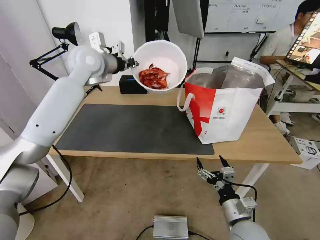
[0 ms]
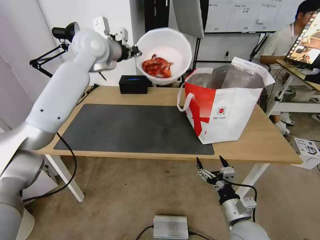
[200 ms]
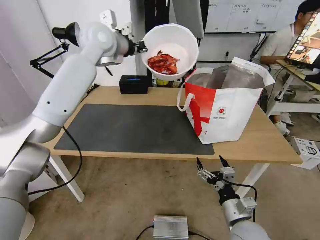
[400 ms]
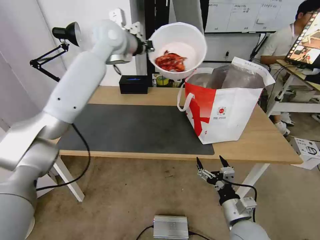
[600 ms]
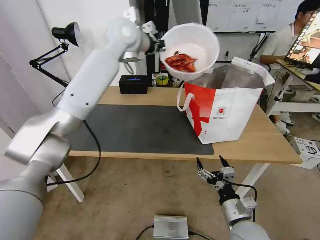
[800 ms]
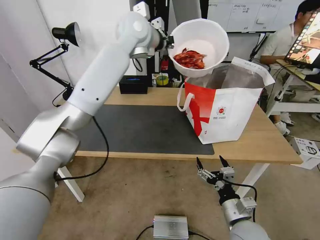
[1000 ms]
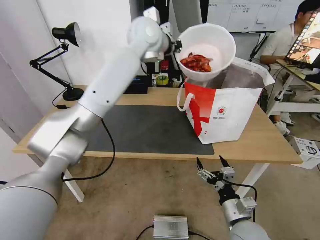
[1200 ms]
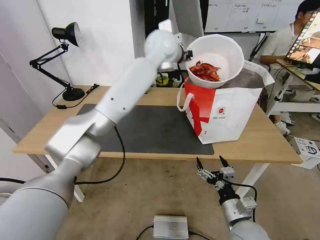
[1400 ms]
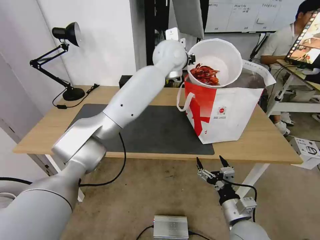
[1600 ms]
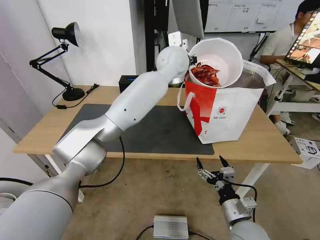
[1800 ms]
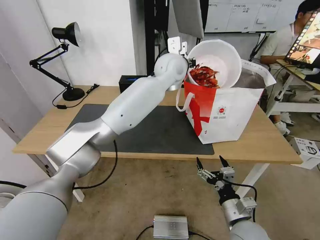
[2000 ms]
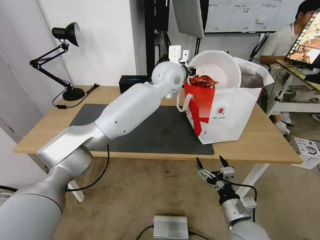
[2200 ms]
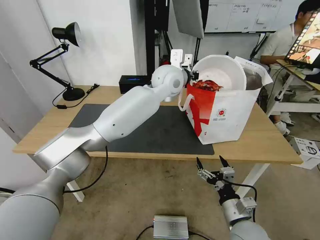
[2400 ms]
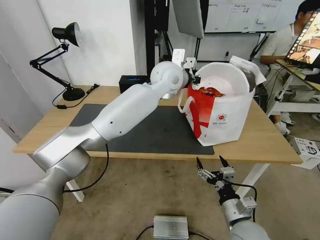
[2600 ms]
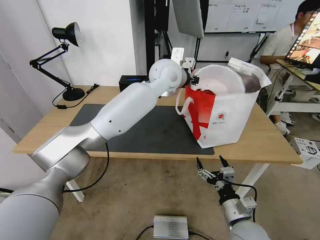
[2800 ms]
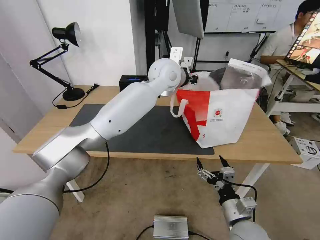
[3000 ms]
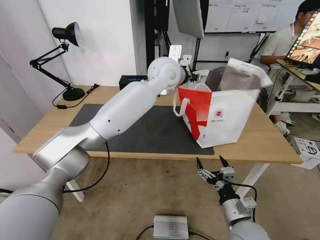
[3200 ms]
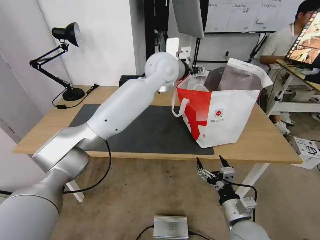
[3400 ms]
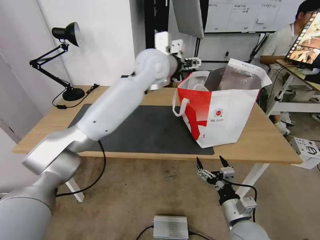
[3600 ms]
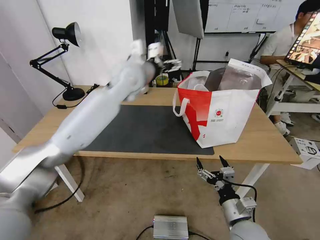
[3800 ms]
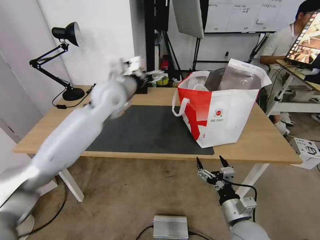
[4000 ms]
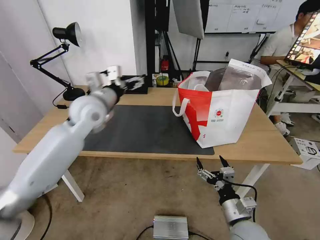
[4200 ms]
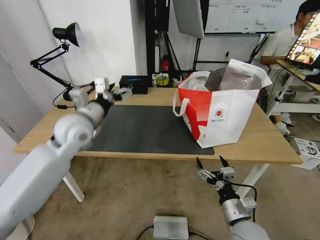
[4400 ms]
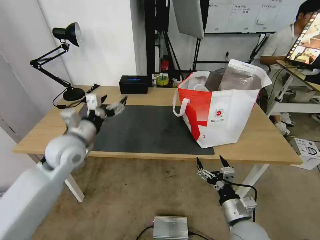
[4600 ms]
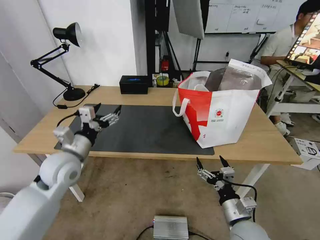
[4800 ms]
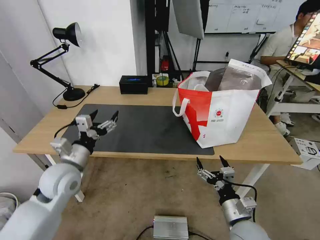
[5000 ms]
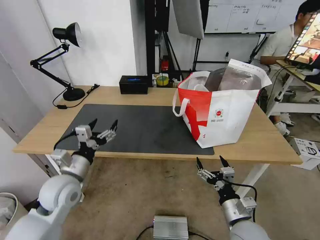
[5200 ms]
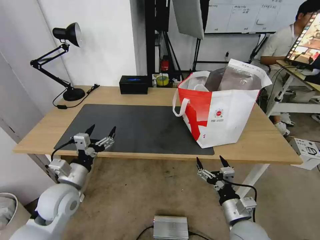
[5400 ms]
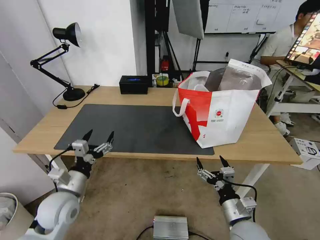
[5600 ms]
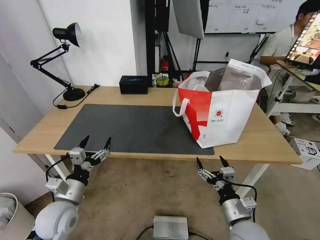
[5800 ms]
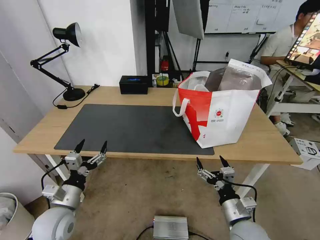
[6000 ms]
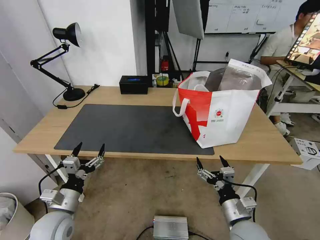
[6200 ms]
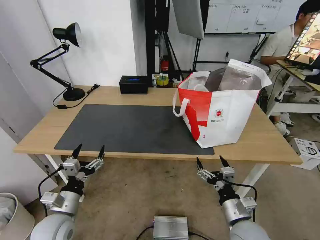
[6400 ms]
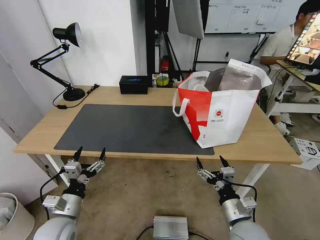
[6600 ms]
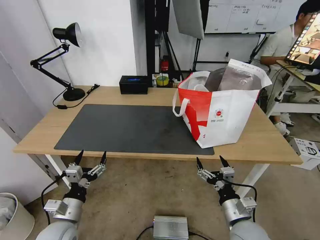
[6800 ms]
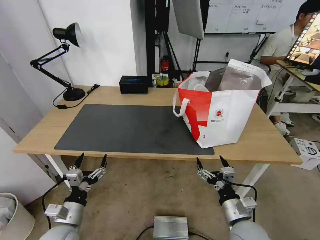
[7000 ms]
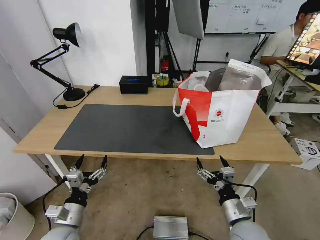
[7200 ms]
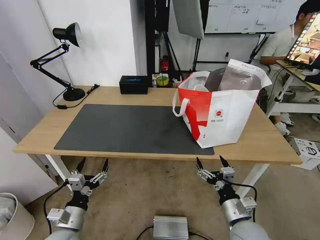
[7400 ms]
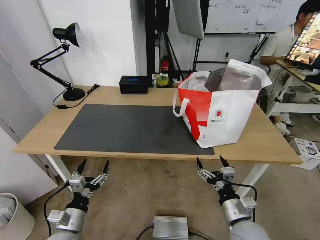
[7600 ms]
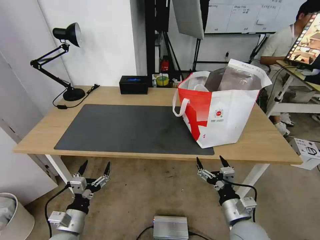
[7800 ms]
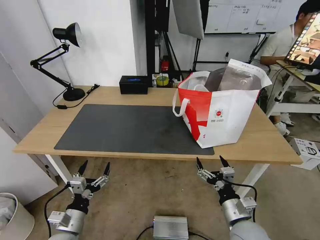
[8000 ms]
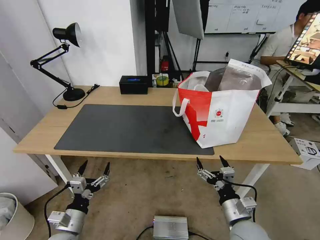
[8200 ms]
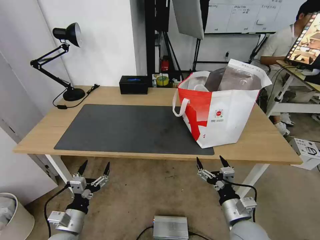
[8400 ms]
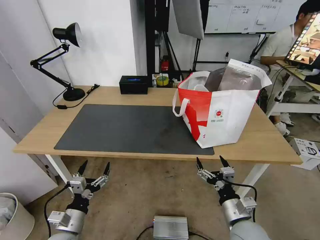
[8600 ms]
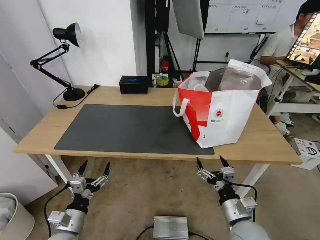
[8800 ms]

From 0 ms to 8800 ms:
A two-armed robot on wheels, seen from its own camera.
Task of the whole recording: Pick up the trash from the table and place it into the takeout bag.
From 0 ms to 1400 ms: The left gripper goes roughly 20 cm to the right.
From 1400 ms to 3000 ms: The left gripper goes some 5 cm downward, and opens.
From 3000 ms to 4400 ms: The left gripper heads to the left, backward and downward, covering roughly 30 cm, and opens.
From 4400 ms to 5800 ms: The left gripper moves downward and backward, roughly 25 cm.
From 5800 ms to 7400 ms: The left gripper heads downward and backward, covering about 10 cm.
From 7400 ms to 8800 ms: The two grippers keep their place.

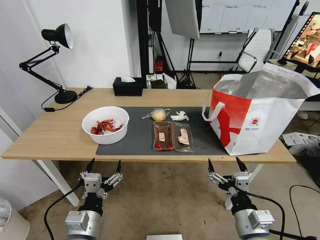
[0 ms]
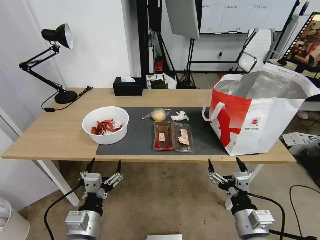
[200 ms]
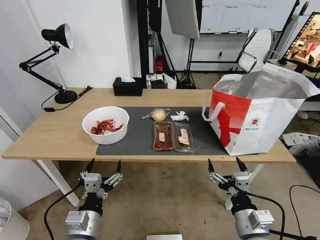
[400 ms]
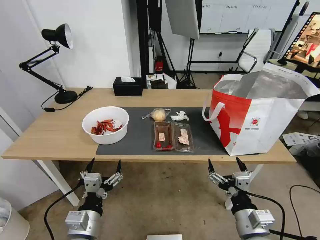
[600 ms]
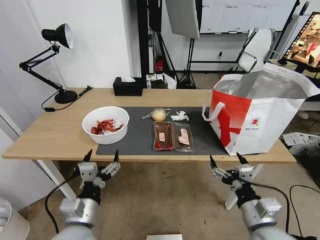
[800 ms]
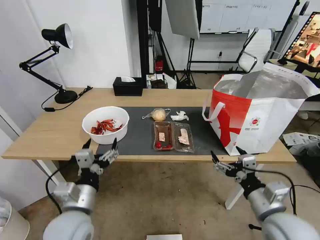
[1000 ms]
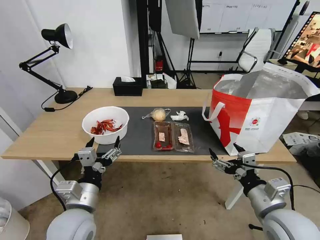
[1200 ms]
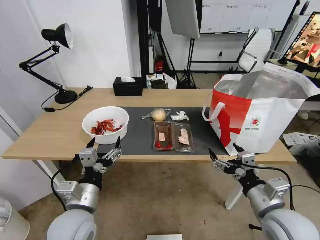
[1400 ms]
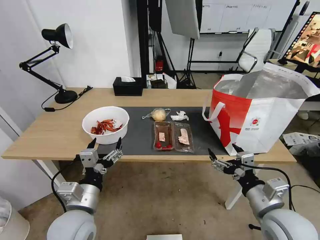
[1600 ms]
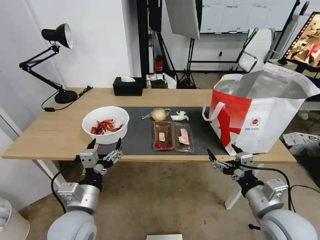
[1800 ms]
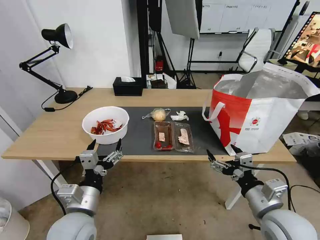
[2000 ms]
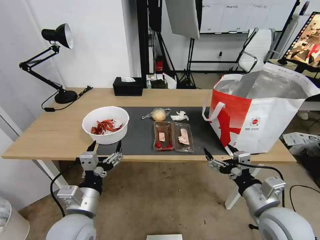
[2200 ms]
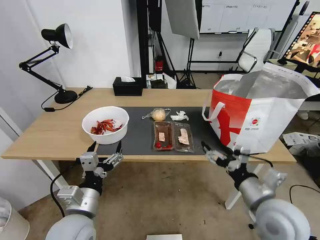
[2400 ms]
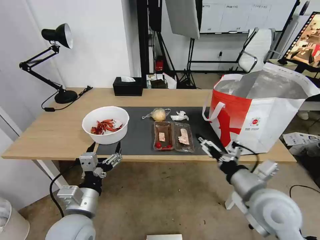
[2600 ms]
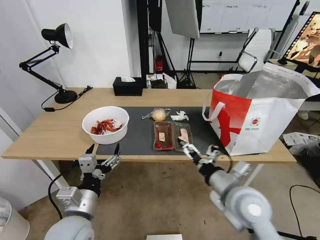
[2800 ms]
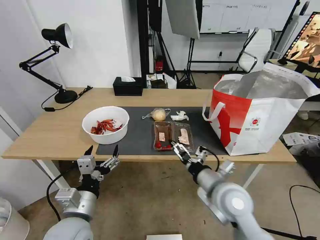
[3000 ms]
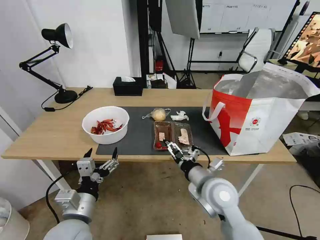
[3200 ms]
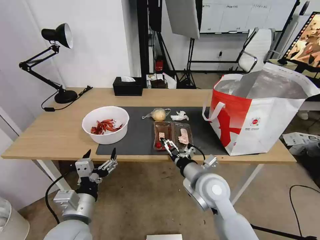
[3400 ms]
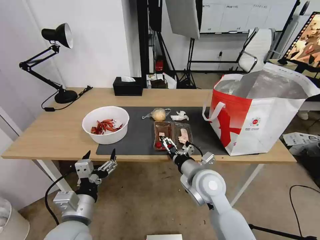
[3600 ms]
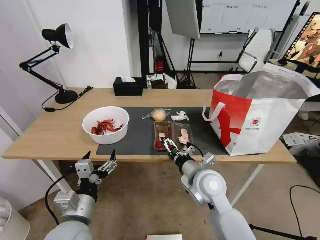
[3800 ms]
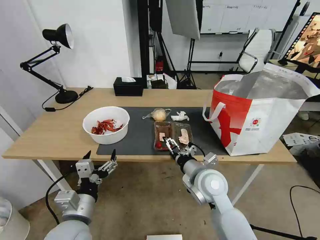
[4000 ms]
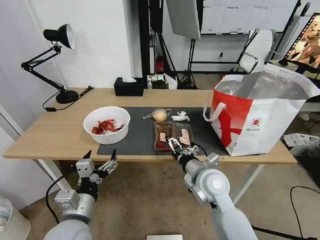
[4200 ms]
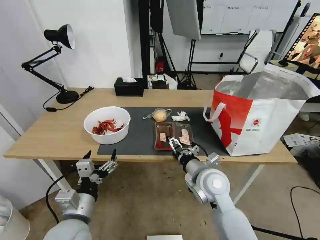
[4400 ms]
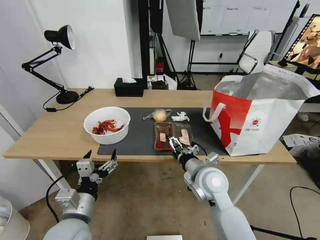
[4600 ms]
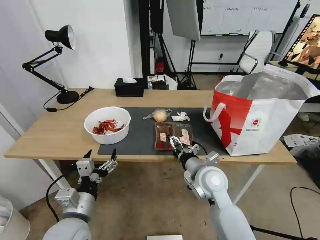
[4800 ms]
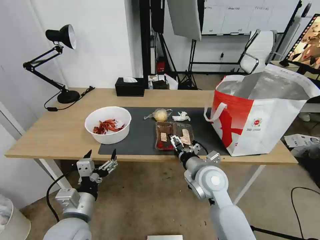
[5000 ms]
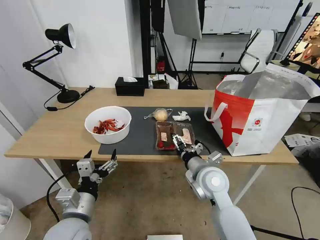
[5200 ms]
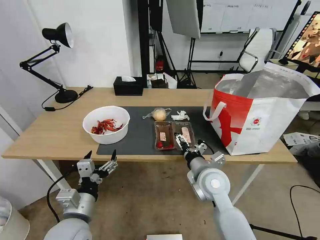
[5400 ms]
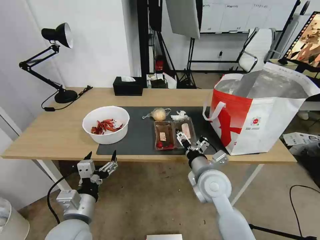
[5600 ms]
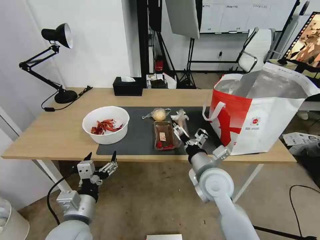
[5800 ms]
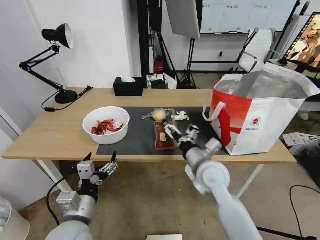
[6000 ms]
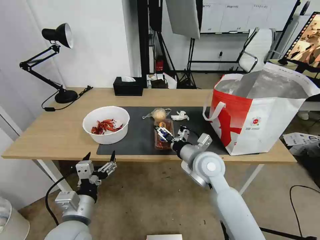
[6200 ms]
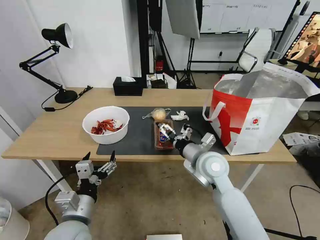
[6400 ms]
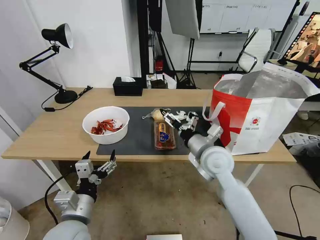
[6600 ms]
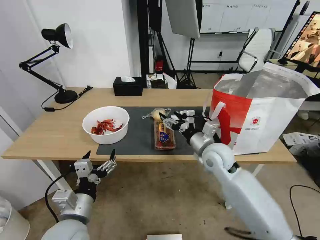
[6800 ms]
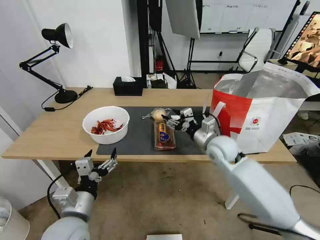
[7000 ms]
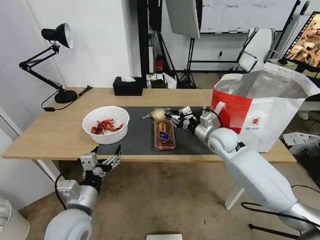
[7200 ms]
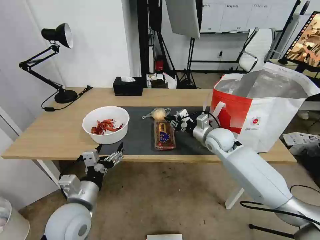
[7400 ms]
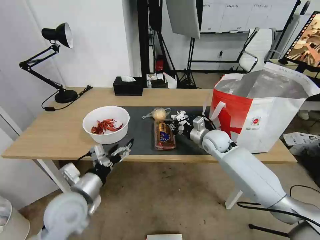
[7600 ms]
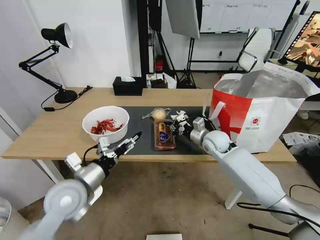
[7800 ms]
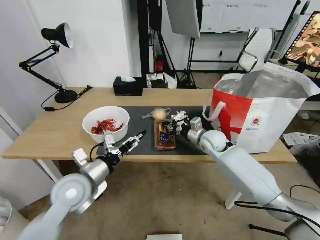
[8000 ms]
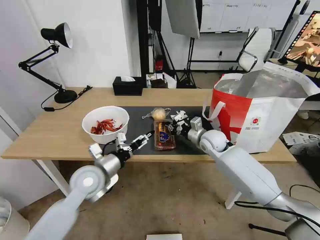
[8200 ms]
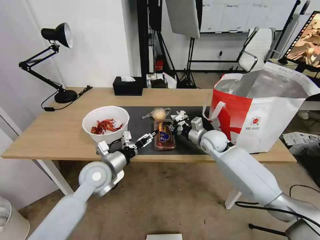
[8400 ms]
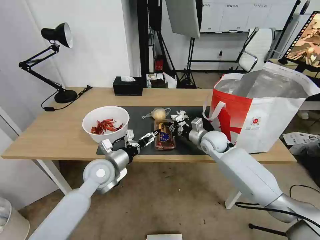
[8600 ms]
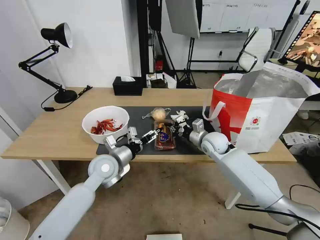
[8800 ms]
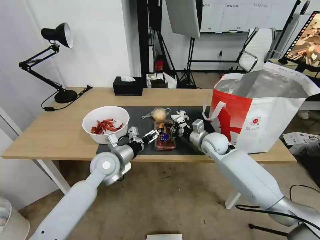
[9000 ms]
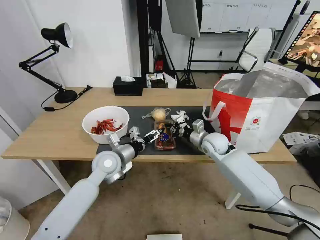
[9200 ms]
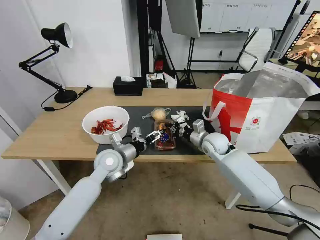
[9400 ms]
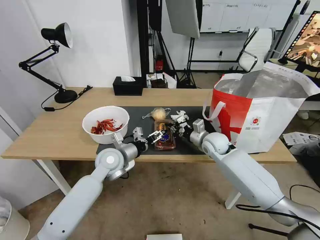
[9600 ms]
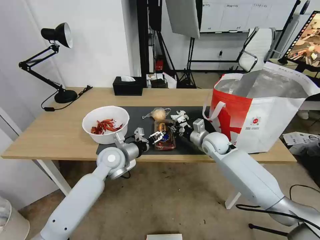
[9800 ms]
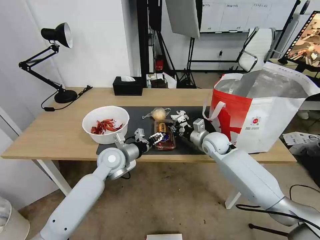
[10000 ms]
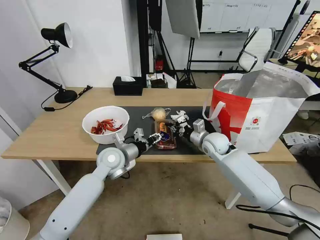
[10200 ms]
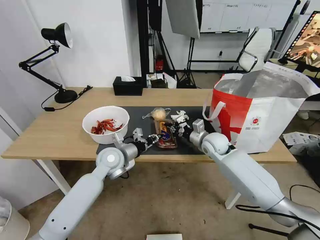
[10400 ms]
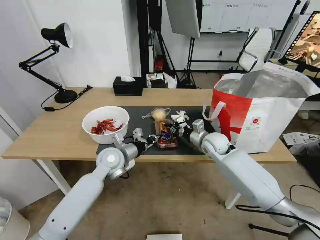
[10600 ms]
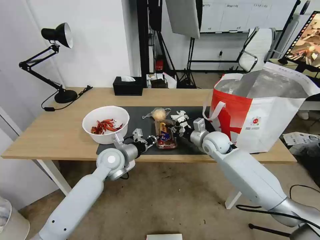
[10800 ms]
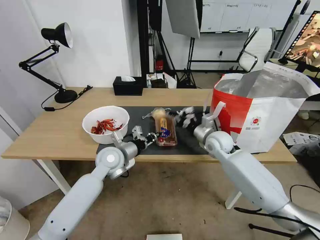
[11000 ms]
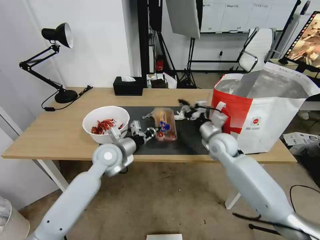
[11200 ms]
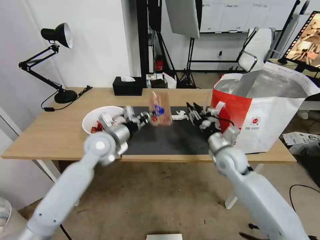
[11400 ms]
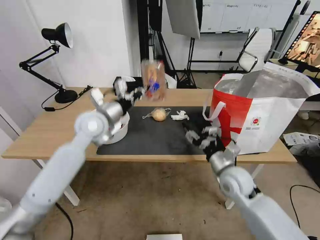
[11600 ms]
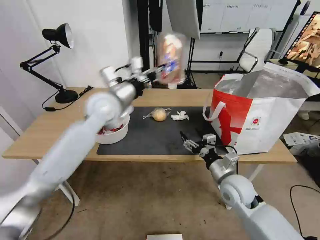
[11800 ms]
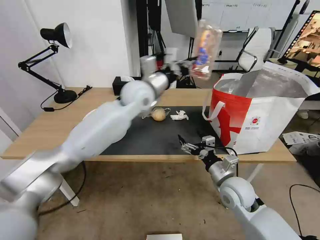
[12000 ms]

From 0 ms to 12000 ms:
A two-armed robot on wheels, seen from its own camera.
Task of the whole recording: Pick up the trash from the table and place it into the takeout bag.
From 1600 ms to 3000 ms: The right gripper heads to the left and forward, covering approximately 10 cm.
From 3000 ms to 4400 ms: The right gripper shifts about 5 cm forward.
From 6000 ms to 7600 ms: The right gripper goes approximately 15 cm forward and to the right, and closes up; the left gripper goes some 5 cm forward.
From 7600 ms to 9000 ms: The left gripper travels forward by some 15 cm.
From 9000 ms to 10400 ms: The left gripper closes up.
From 10400 ms to 12000 ms: The right gripper travels backward by approximately 20 cm, and opens its fingers; the left gripper is displaced upward, to the right and forward by some 25 cm.

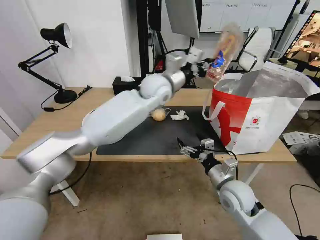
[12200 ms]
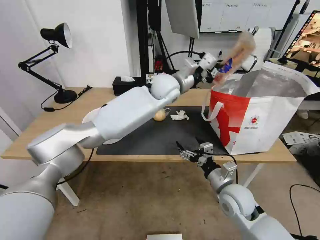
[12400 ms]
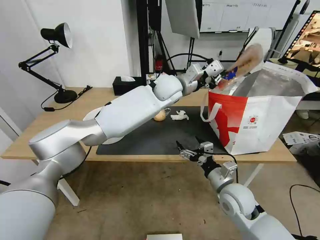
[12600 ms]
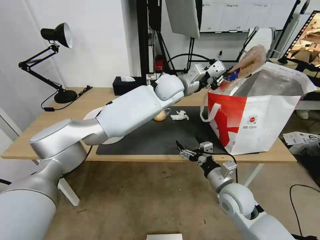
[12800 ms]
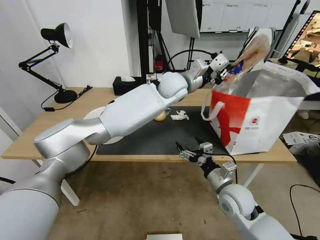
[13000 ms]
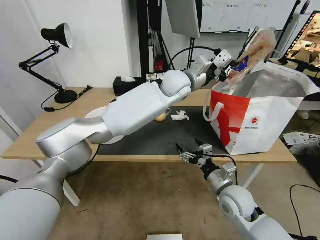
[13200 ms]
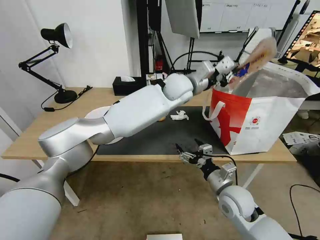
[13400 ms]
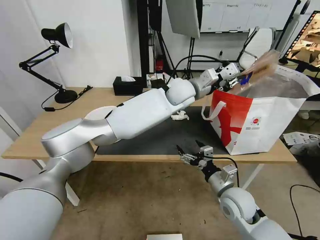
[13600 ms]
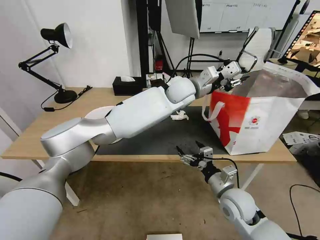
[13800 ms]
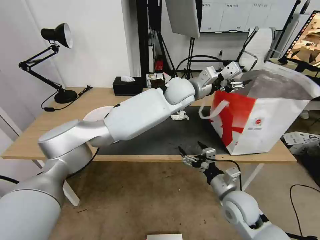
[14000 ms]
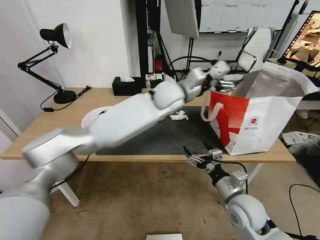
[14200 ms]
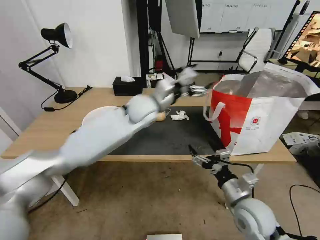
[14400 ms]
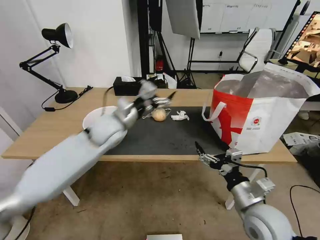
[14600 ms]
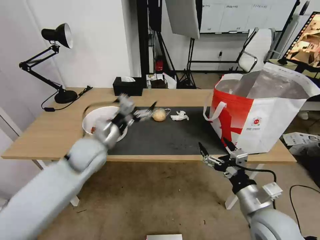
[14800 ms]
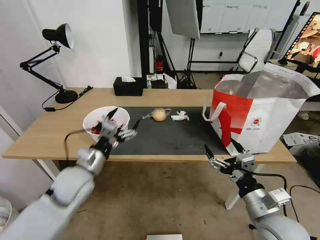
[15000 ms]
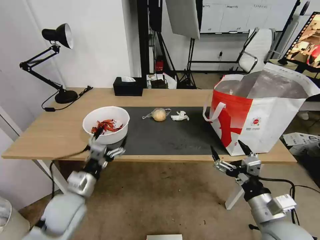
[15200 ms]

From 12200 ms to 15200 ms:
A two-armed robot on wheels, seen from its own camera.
Task of the whole recording: Pick up the trash from the table and place it into the takeout bag.
From 12200 ms to 13800 ms: The left gripper heads to the right, covering some 5 cm, and opens its fingers.
From 13800 ms to 15200 ms: The right gripper moves backward, upward and to the right, roughly 15 cm. Meanwhile the left gripper moves to the left, backward and downward, roughly 50 cm, and opens its fingers.
